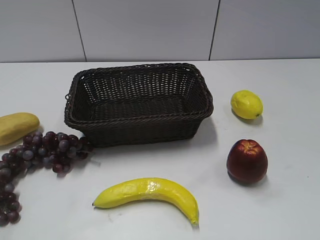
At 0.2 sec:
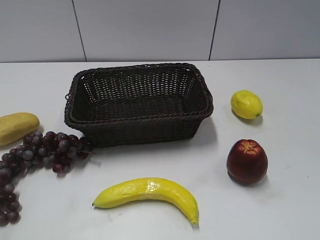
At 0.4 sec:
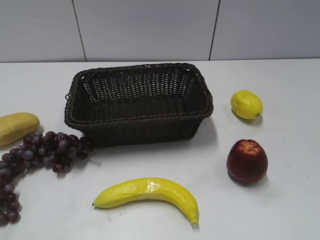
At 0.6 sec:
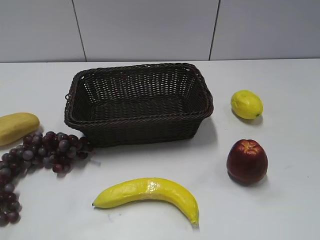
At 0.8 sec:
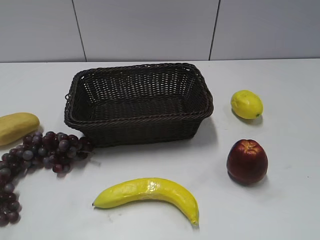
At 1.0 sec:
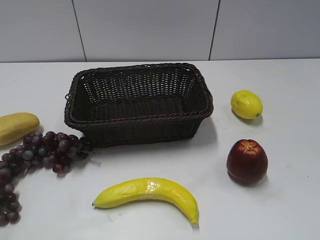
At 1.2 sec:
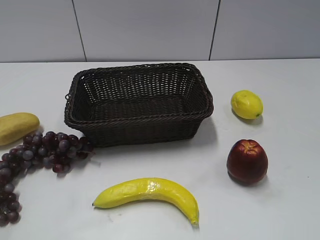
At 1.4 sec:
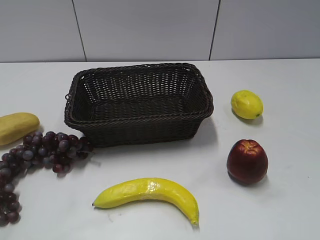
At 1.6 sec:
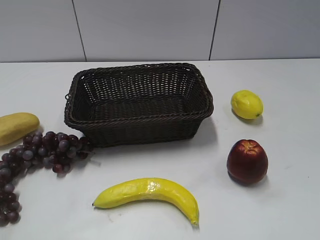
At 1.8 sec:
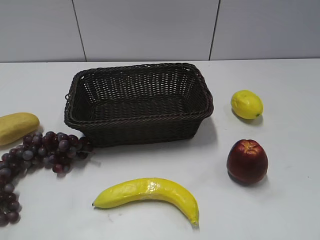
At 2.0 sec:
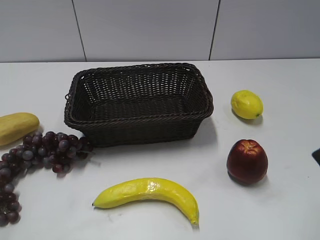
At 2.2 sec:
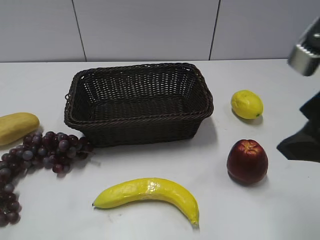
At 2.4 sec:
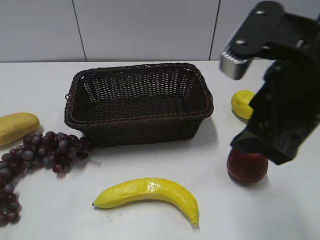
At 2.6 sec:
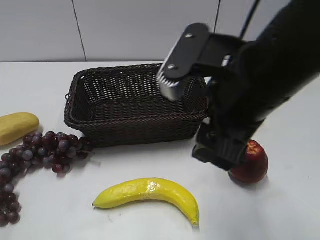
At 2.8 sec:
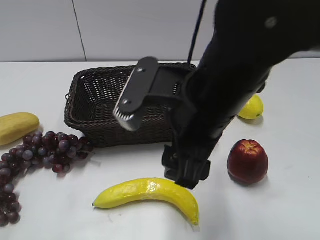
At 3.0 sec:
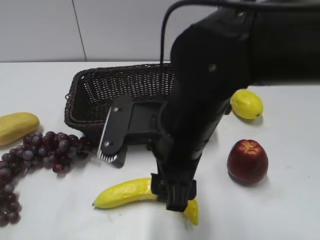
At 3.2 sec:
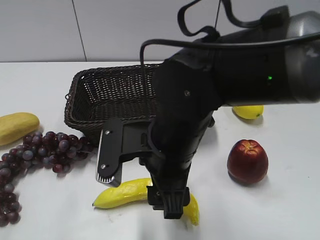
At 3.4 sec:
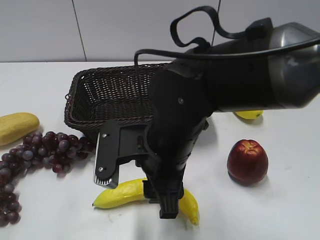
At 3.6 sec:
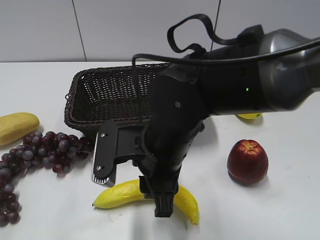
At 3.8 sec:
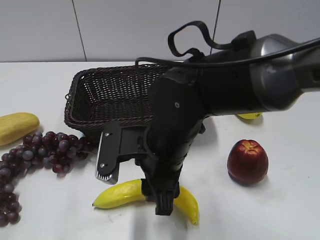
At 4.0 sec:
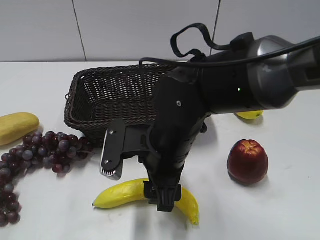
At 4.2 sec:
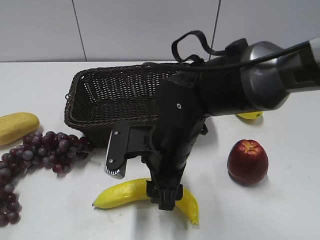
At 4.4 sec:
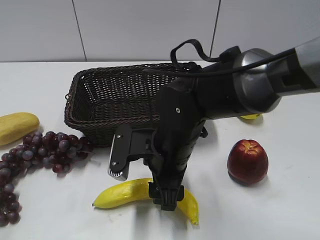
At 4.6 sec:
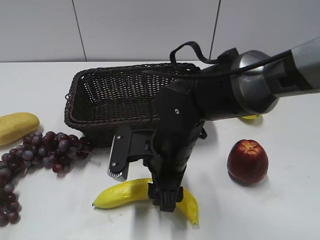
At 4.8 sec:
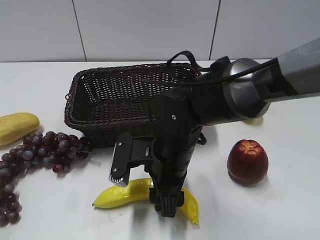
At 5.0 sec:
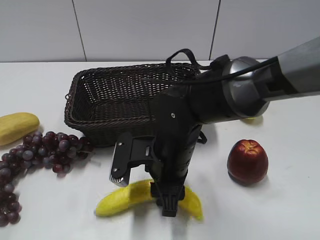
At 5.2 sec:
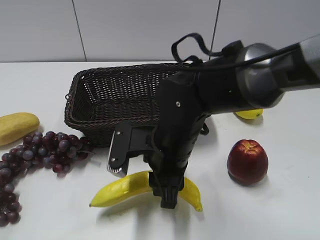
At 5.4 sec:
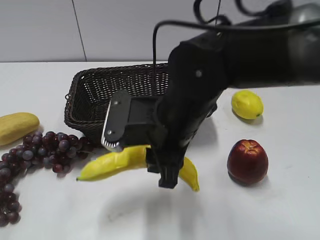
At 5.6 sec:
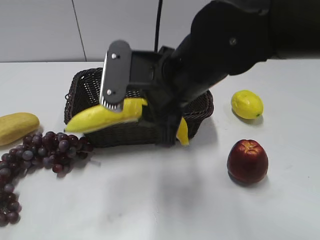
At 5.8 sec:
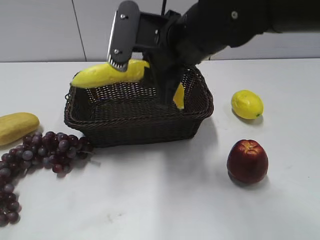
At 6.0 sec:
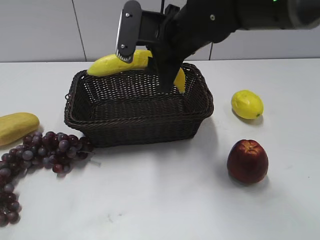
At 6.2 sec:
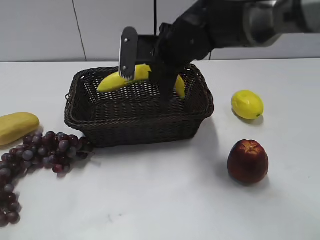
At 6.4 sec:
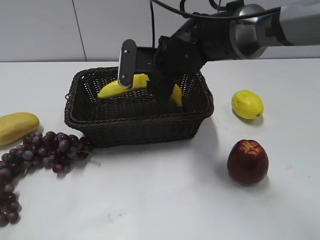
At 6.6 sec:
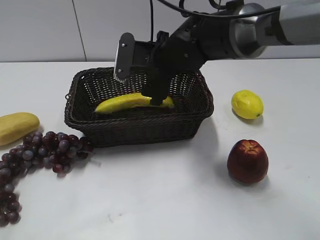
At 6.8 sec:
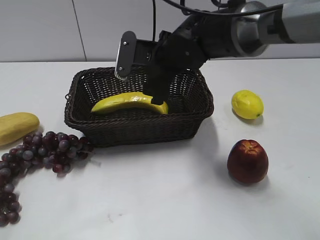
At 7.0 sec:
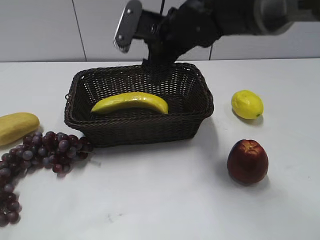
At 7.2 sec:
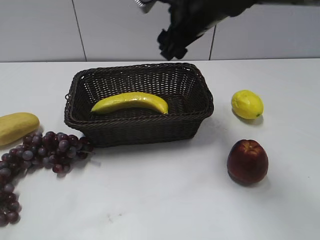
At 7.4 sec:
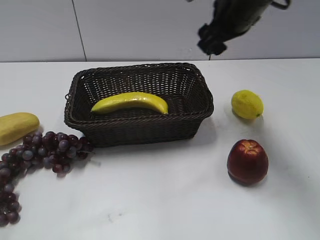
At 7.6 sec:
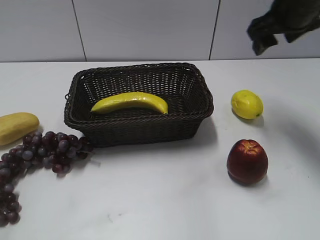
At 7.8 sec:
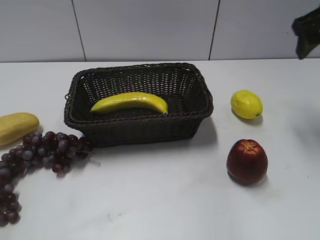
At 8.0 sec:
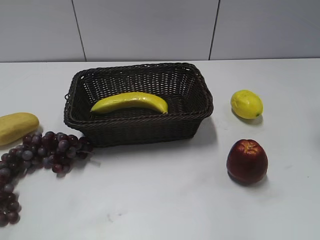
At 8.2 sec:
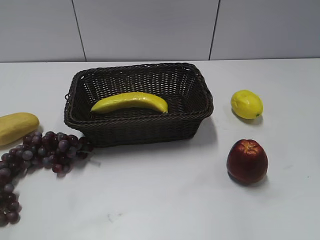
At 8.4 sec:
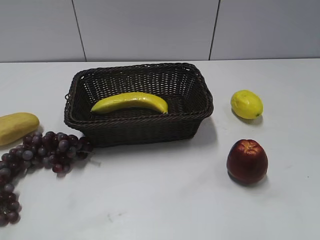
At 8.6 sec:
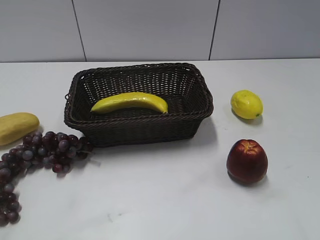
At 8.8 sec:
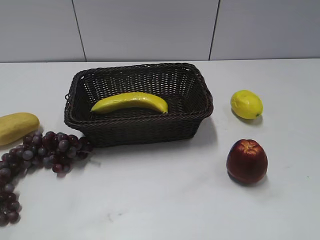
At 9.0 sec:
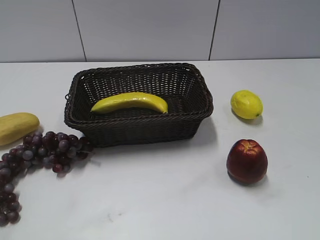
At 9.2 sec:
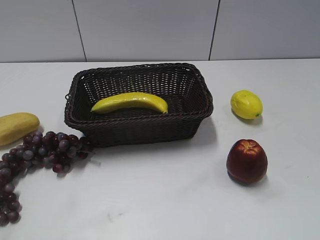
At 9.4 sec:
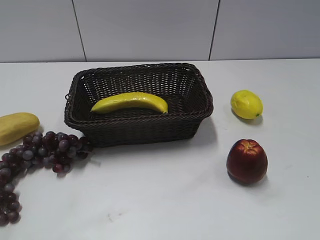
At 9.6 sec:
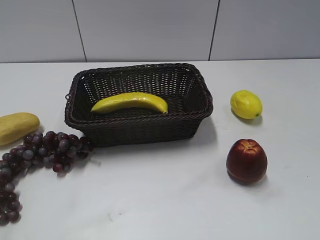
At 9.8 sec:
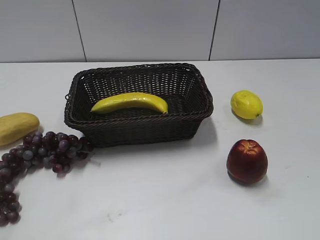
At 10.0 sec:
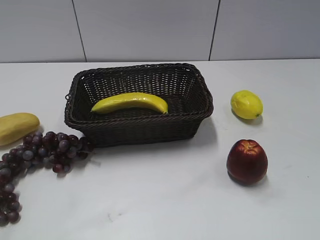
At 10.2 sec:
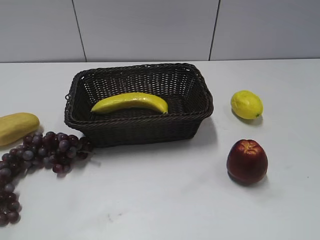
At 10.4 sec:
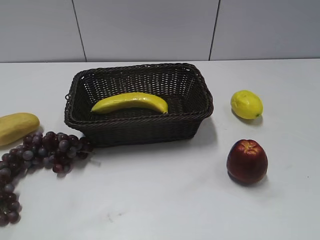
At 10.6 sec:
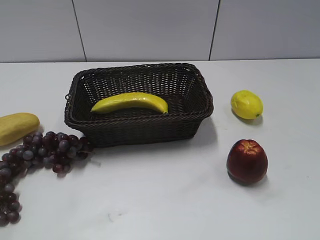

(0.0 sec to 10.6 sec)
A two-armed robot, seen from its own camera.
Step, 2.0 sec - 4.8 sec: Grasp the banana with right gripper.
Step, 5.2 sec - 6.6 sec: Place the banana in the basket with right gripper.
1.6 sec - 3.0 sec: The right gripper goes some 30 cm to the left, downward and forward.
3.0 sec - 4.6 sec: The right gripper travels downward by approximately 10 cm, and closes and opens again.
4.6 sec - 6.0 sec: The right gripper shifts some 15 cm upward and forward, and closes up.
6.0 sec - 7.6 sec: The right gripper goes about 20 cm to the right, and opens.
7.6 sec - 9.0 sec: The right gripper goes approximately 35 cm backward.

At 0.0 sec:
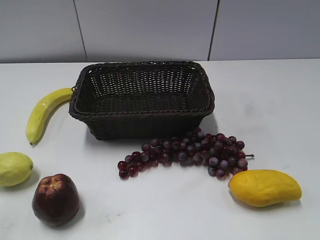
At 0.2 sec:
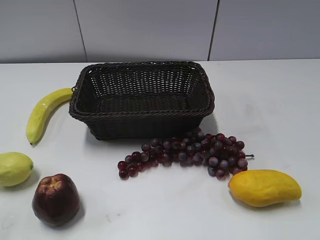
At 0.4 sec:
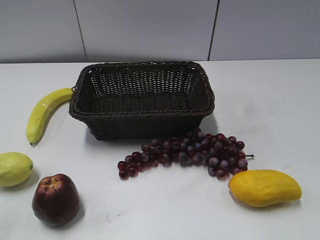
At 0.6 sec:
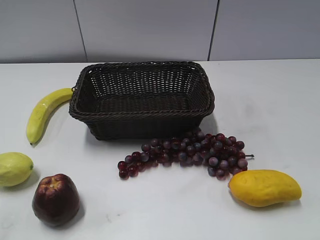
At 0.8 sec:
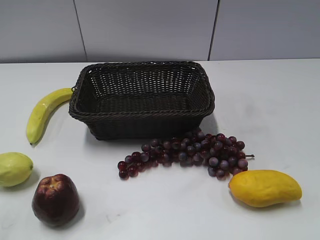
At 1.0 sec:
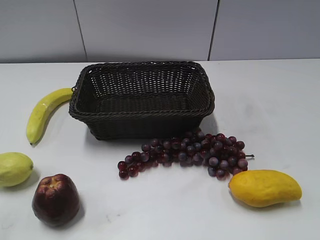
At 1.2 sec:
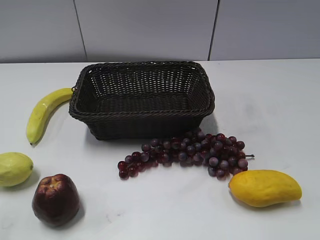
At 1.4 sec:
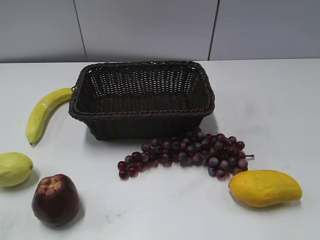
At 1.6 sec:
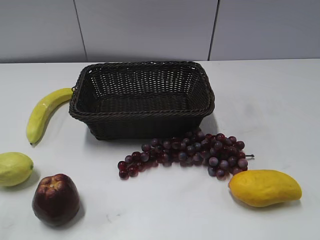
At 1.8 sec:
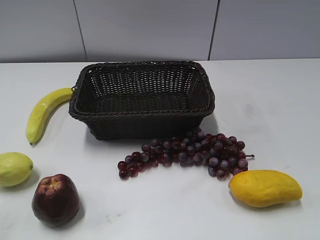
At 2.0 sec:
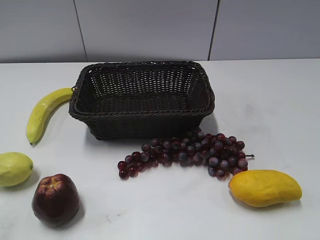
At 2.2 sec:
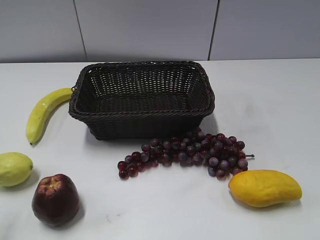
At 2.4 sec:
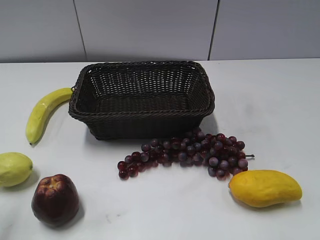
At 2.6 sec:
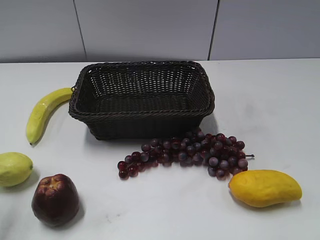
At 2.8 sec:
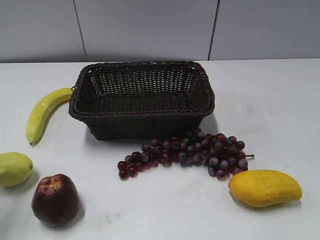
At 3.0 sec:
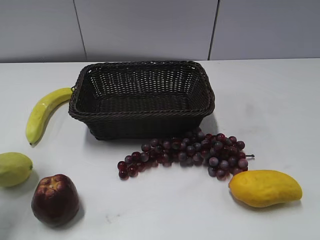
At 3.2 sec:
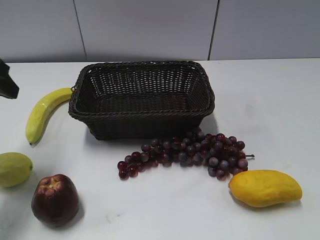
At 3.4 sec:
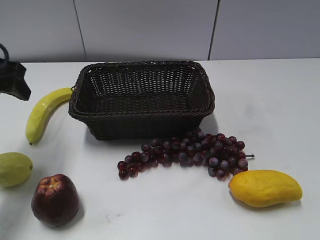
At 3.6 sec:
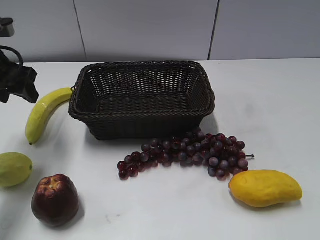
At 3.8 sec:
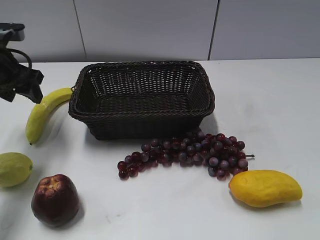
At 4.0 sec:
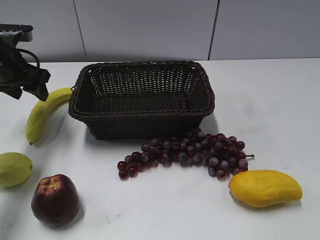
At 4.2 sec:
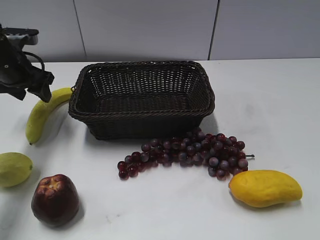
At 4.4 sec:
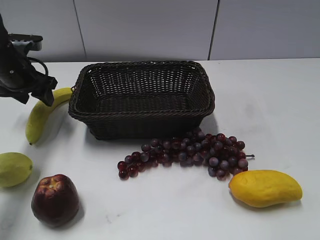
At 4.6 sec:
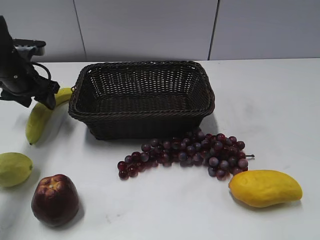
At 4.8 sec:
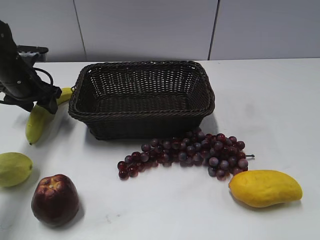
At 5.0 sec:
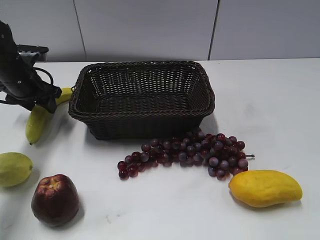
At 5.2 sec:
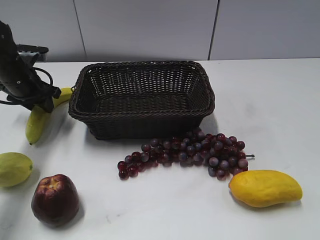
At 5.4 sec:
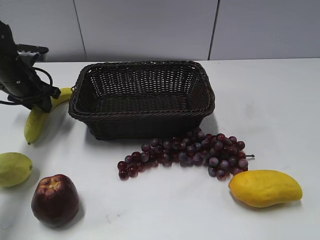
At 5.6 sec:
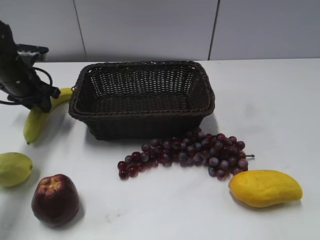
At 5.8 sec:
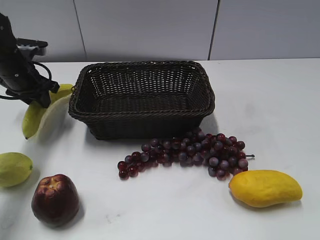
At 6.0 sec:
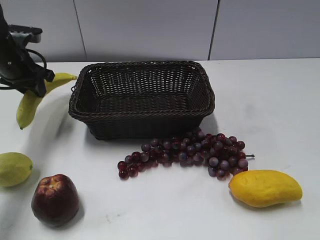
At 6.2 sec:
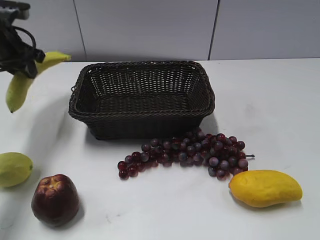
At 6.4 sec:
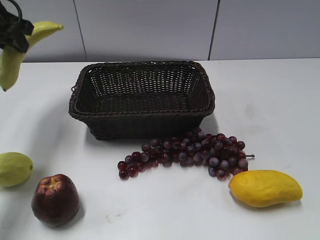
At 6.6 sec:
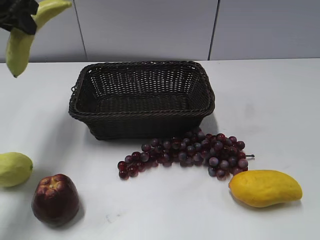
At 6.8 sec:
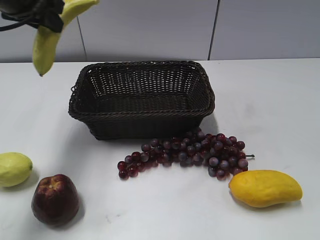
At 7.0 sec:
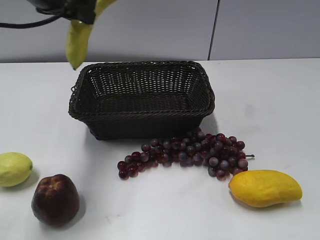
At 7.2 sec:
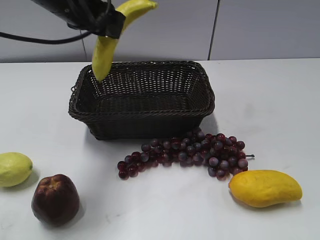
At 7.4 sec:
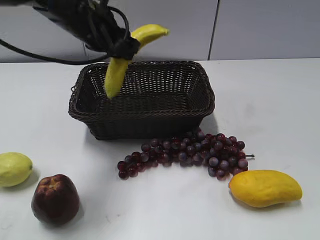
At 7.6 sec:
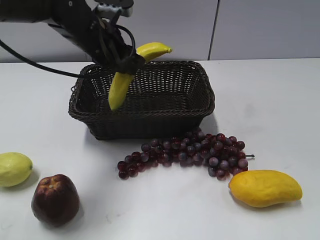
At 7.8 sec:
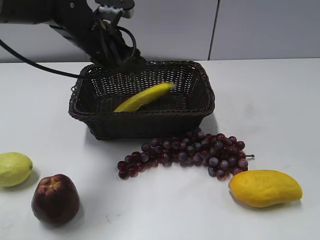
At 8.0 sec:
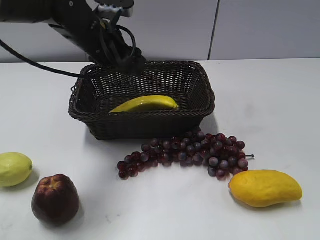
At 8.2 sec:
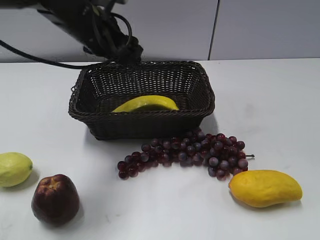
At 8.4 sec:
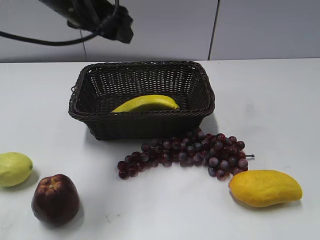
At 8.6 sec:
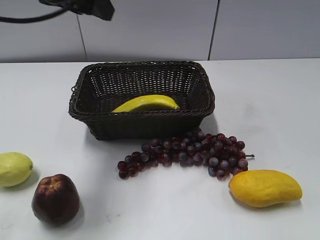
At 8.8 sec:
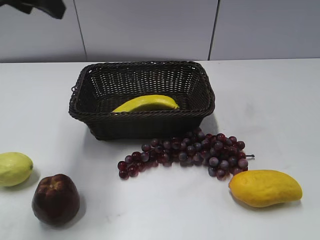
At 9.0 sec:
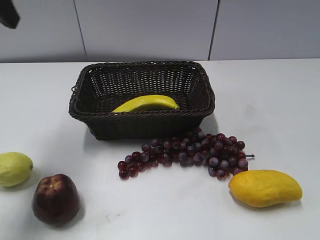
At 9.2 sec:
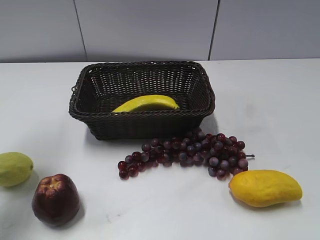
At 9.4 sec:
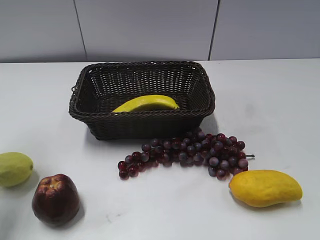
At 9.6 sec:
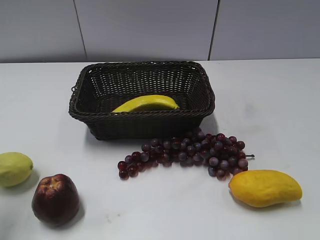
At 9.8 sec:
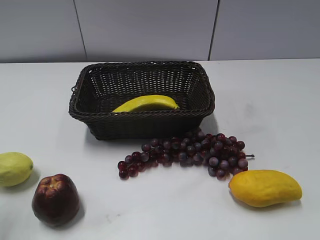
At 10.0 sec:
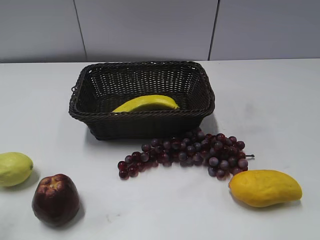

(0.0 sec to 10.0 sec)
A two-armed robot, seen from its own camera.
Step, 3.2 sec - 5.2 sec: Grasp the banana with left gripper.
Step, 5.6 sec - 7.8 sec: Place the banana in the basket with left gripper.
1.4 sec - 2.8 sec: The left gripper moves forward, about 20 cm, and opens.
2.8 sec - 4.2 sec: The left gripper travels forward and downward by approximately 25 cm.
4.2 sec - 5.8 sec: The left gripper closes up.
5.8 sec - 7.2 sec: The left gripper is displaced to the right and upward by approximately 20 cm.
7.2 sec - 8.6 sec: The left gripper goes approximately 5 cm upward, and opens its fingers.
8.6 sec - 10.0 sec: The left gripper heads backward and to the left, covering approximately 30 cm.
